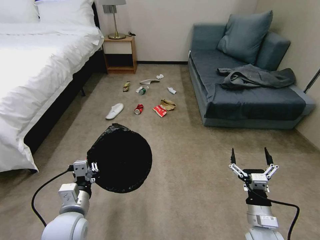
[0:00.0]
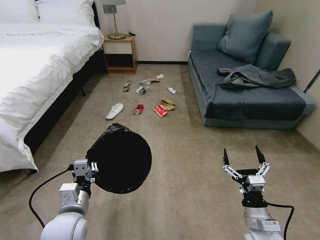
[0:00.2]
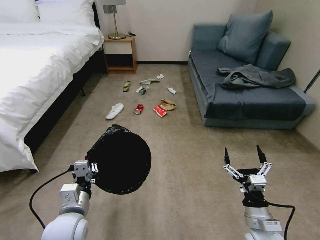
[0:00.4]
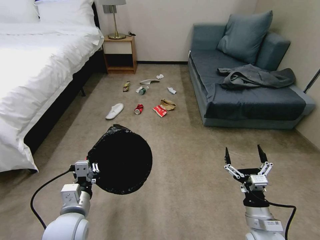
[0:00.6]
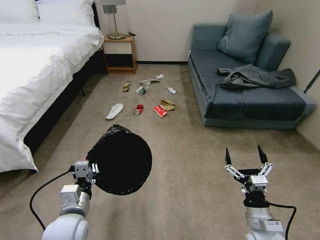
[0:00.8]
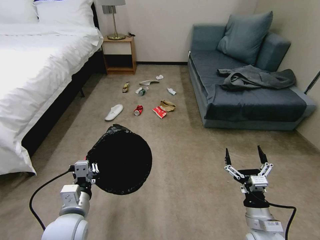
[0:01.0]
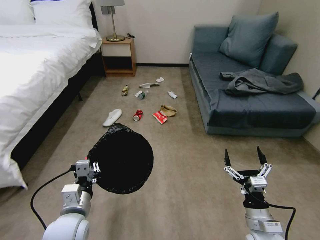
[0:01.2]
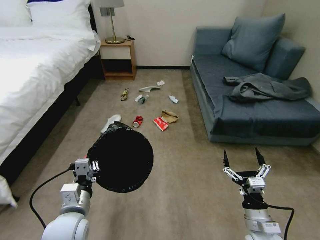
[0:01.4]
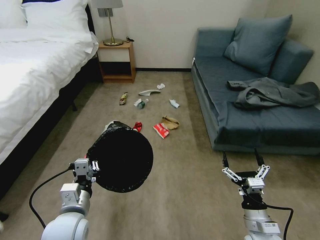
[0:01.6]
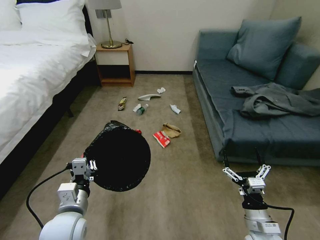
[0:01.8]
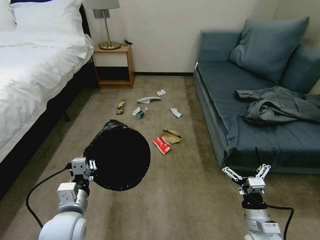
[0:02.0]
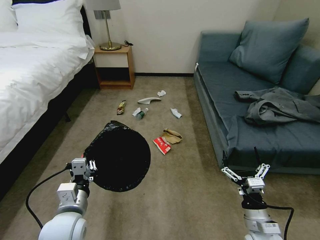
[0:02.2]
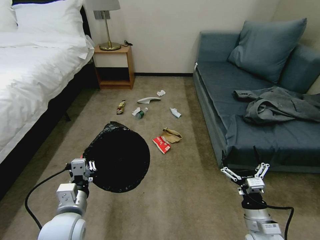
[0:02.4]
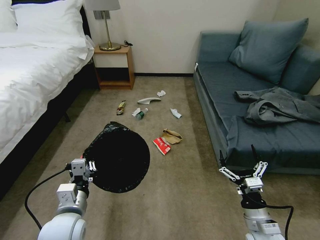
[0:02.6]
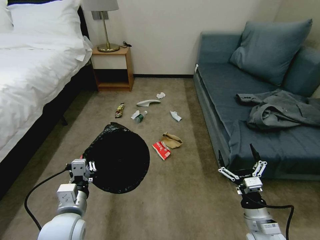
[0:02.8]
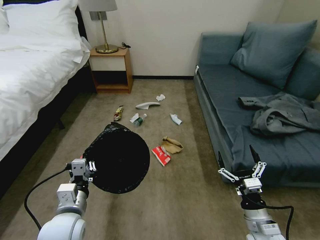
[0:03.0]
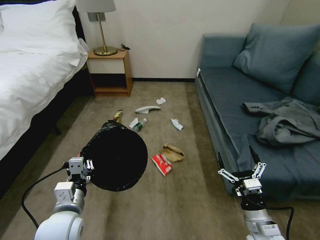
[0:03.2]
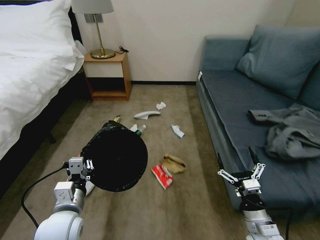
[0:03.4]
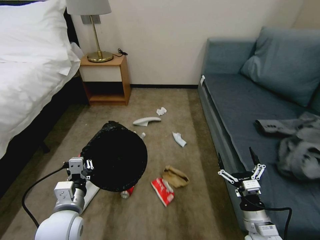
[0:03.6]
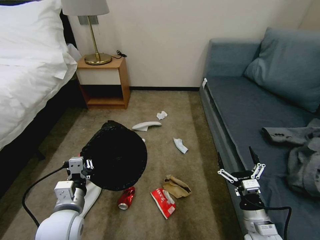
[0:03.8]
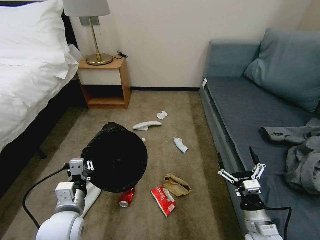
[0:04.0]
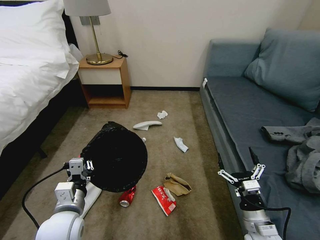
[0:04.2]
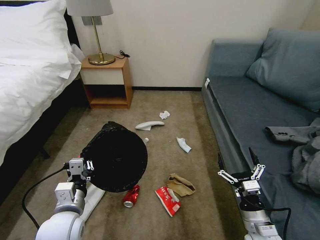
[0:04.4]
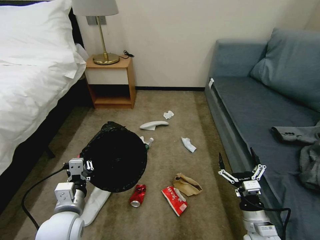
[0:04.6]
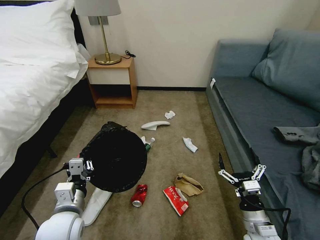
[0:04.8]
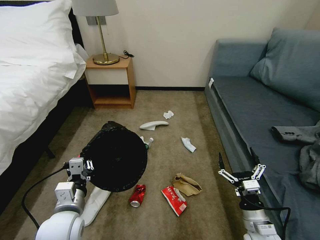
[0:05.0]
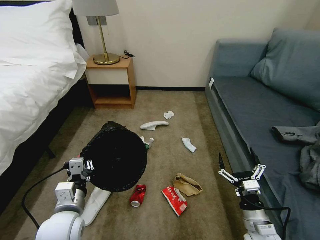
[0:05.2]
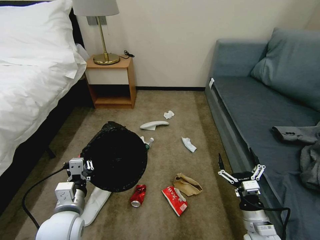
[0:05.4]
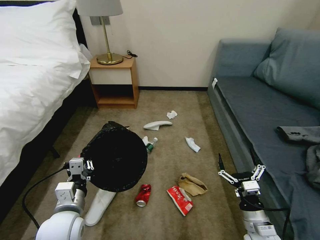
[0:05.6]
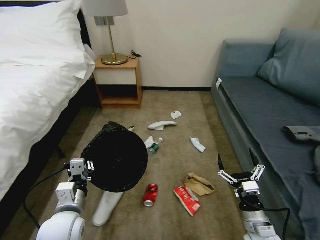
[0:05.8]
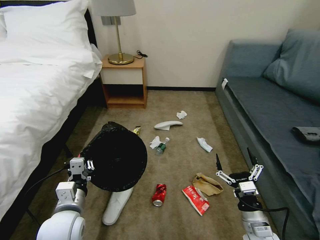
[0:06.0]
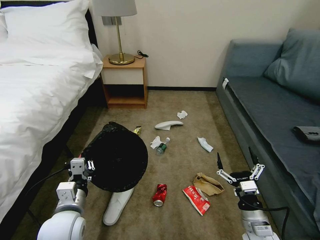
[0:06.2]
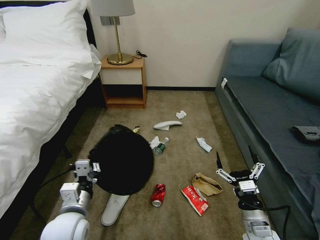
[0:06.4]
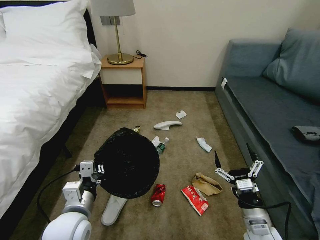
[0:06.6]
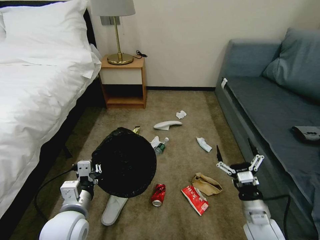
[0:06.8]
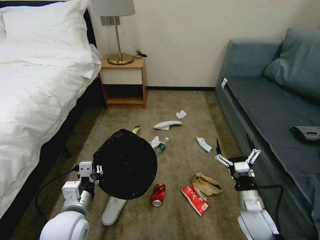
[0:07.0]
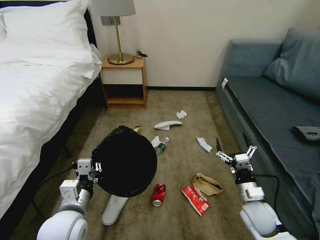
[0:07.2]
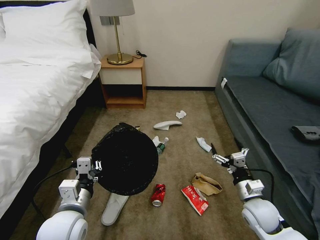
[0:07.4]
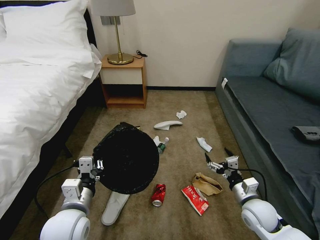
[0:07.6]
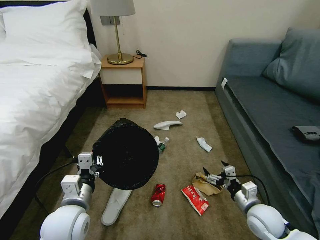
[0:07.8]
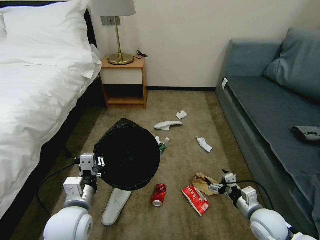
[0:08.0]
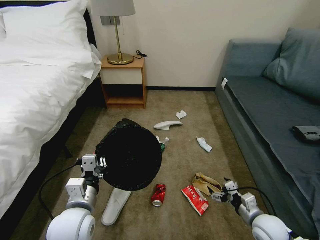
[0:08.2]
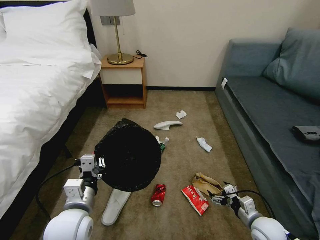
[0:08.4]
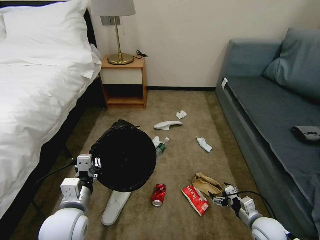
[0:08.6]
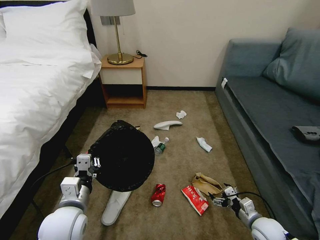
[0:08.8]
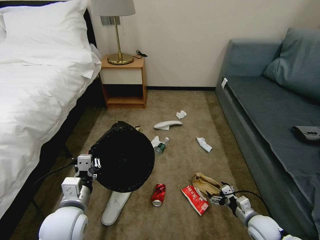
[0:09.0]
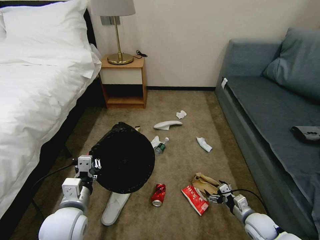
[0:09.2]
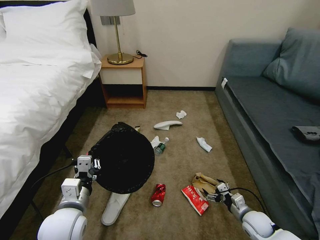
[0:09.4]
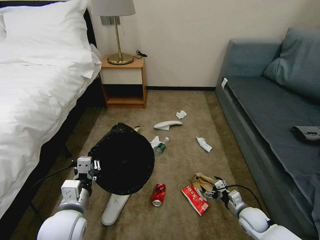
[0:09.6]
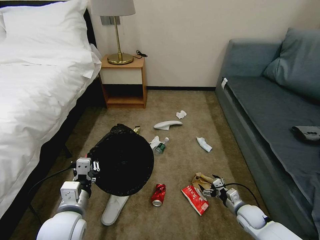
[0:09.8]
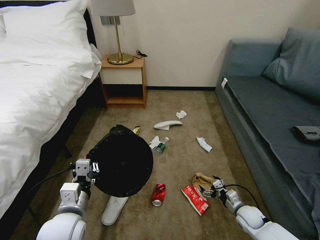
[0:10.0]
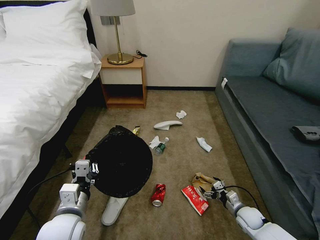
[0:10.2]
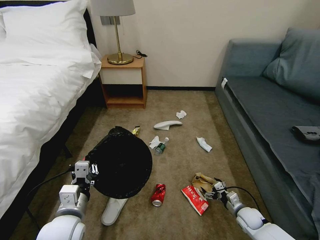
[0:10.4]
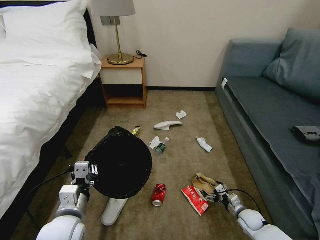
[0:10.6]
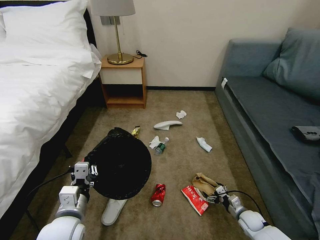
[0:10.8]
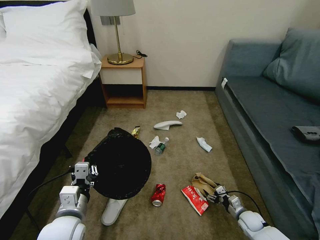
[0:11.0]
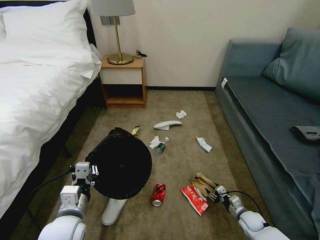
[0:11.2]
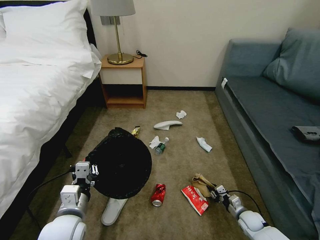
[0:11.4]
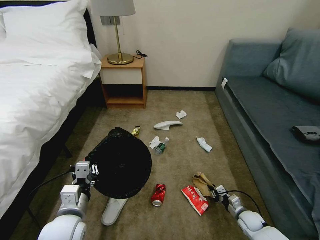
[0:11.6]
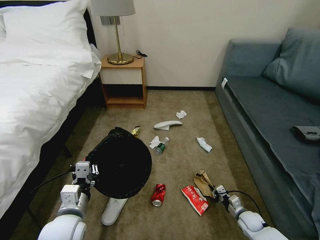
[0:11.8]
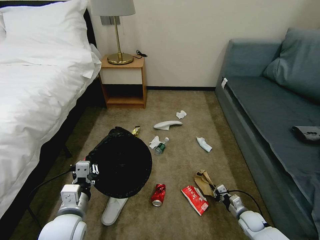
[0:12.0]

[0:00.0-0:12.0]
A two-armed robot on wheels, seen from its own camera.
Task of the whole recording: Pick up the trash bin, then pick up the garbage on the floor and place it into the trash bin.
0:06.0 to 0:07.6: The right gripper goes about 10 cm forward.
0:07.6 to 0:09.0: The right gripper moves downward, some 10 cm.
0:09.0 to 0:10.4: The right gripper goes about 5 cm downward.
0:10.4 to 0:12.0: The right gripper closes up.

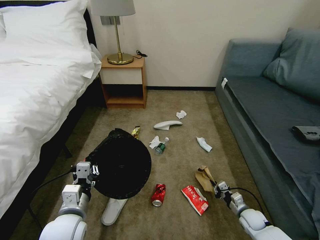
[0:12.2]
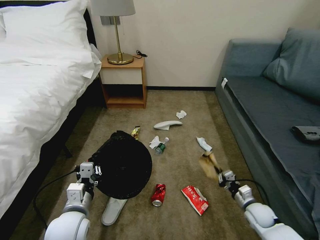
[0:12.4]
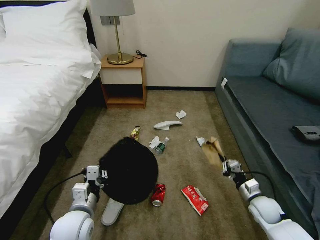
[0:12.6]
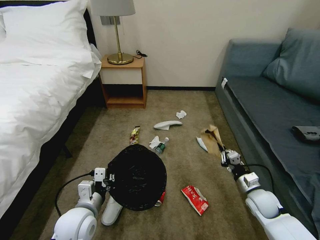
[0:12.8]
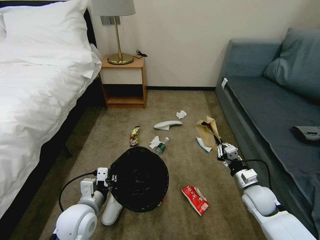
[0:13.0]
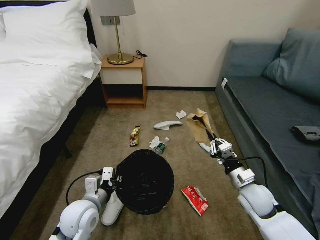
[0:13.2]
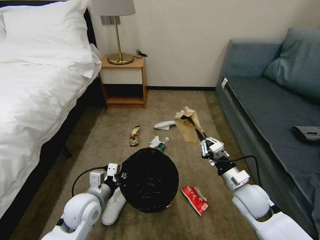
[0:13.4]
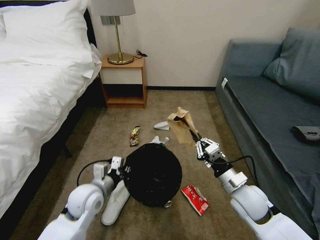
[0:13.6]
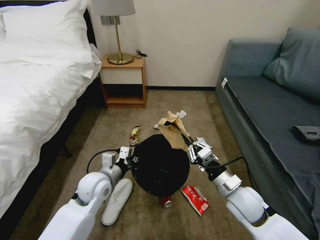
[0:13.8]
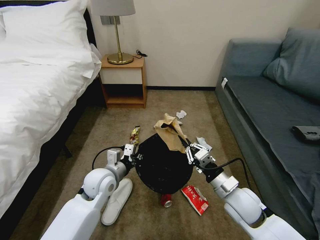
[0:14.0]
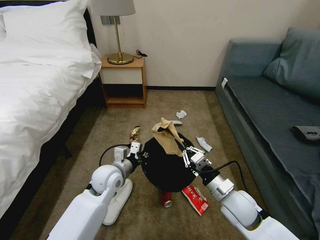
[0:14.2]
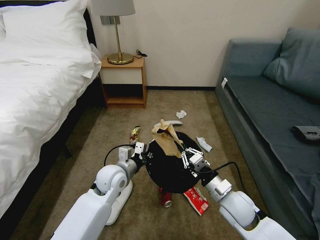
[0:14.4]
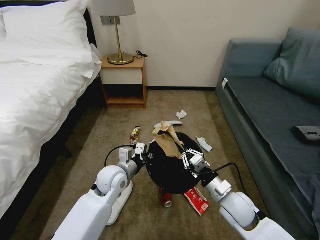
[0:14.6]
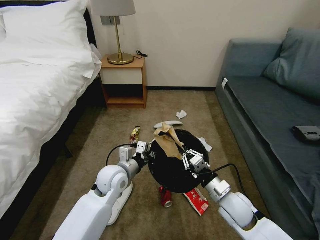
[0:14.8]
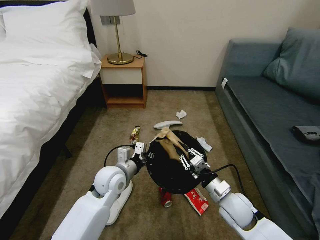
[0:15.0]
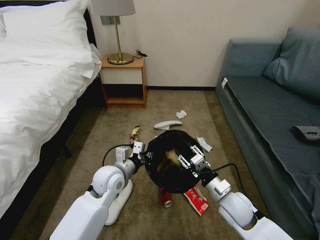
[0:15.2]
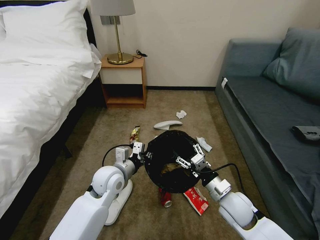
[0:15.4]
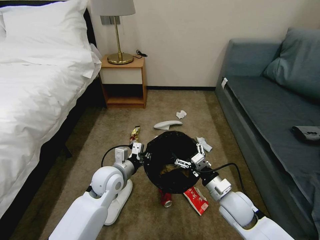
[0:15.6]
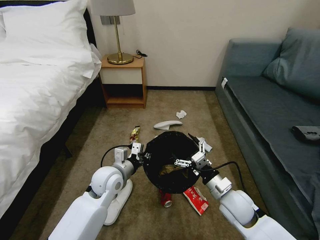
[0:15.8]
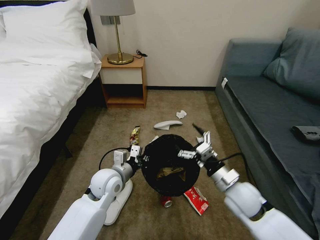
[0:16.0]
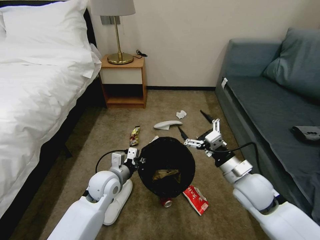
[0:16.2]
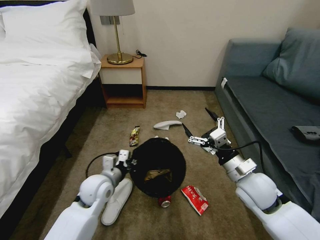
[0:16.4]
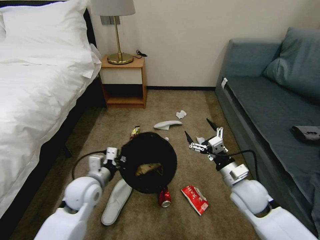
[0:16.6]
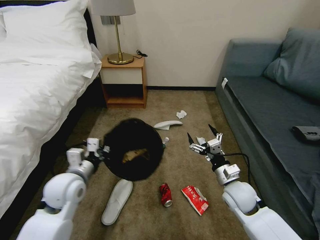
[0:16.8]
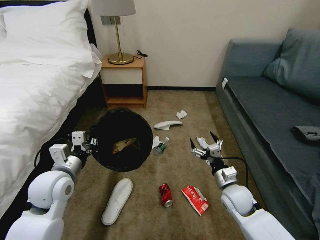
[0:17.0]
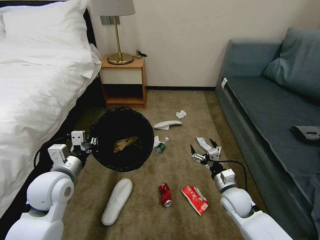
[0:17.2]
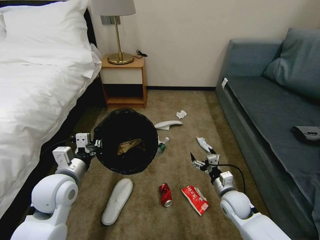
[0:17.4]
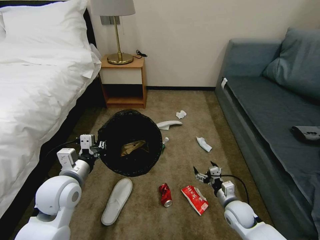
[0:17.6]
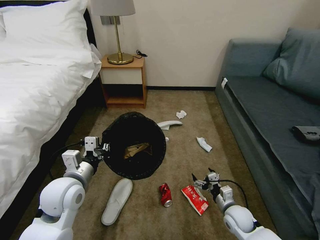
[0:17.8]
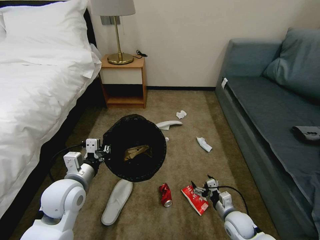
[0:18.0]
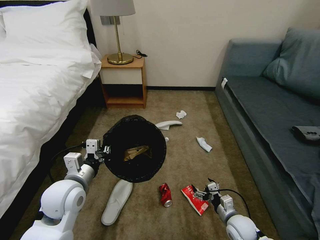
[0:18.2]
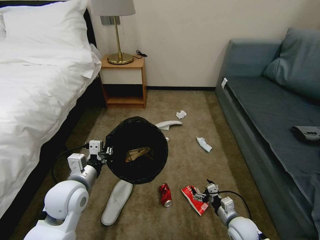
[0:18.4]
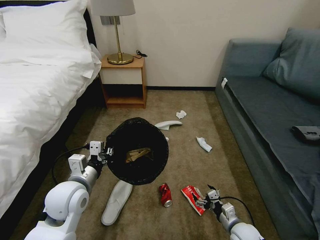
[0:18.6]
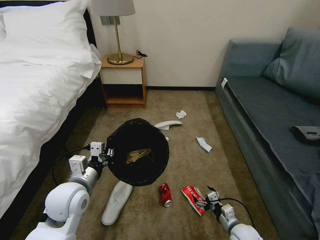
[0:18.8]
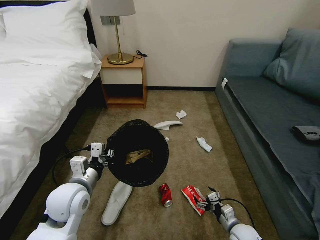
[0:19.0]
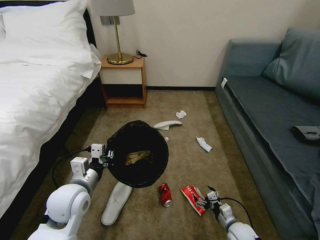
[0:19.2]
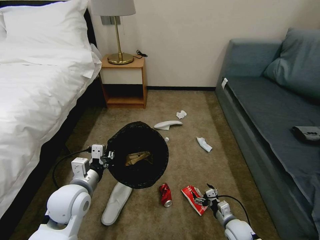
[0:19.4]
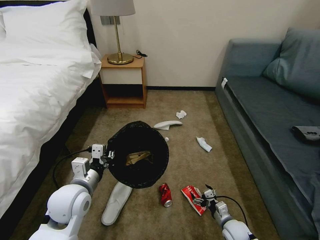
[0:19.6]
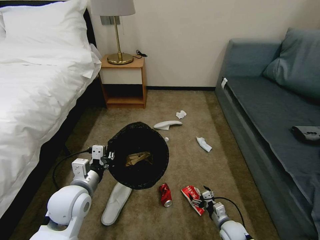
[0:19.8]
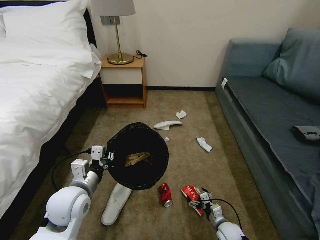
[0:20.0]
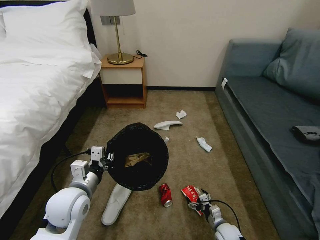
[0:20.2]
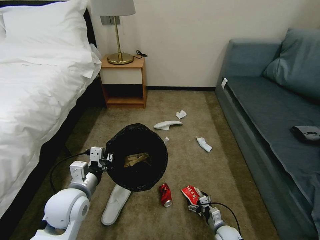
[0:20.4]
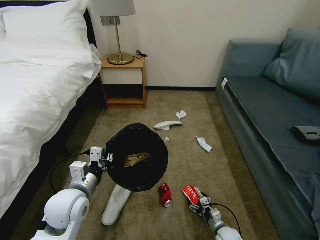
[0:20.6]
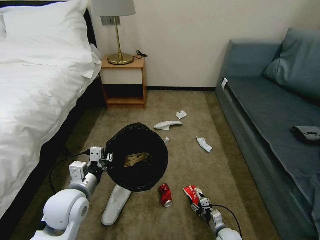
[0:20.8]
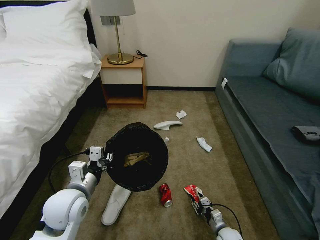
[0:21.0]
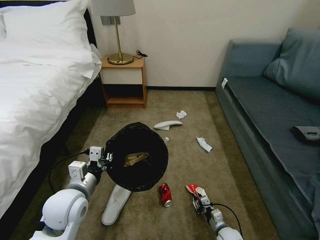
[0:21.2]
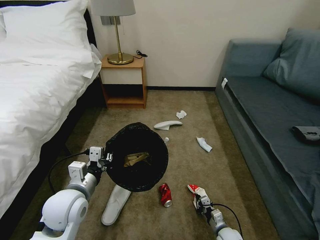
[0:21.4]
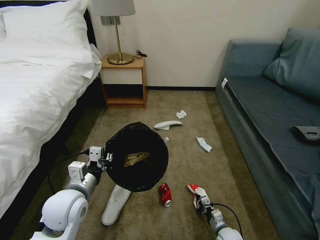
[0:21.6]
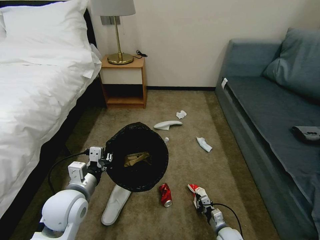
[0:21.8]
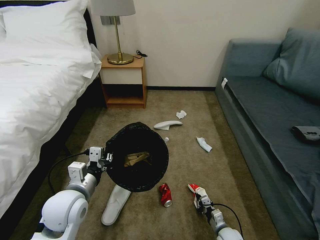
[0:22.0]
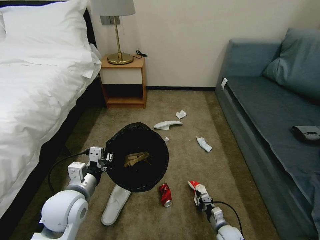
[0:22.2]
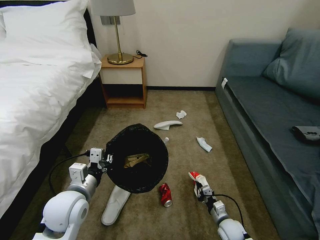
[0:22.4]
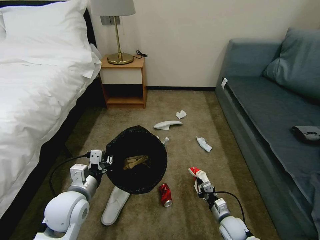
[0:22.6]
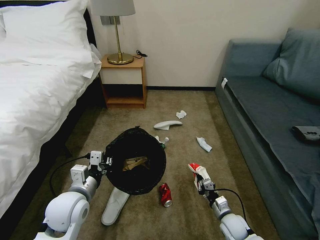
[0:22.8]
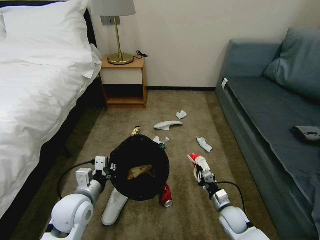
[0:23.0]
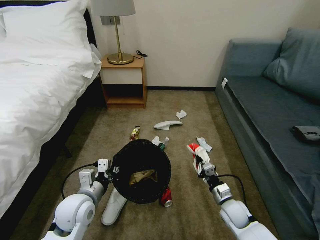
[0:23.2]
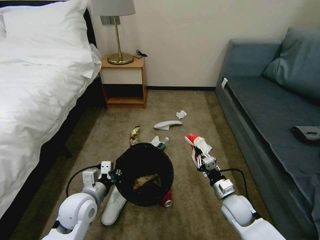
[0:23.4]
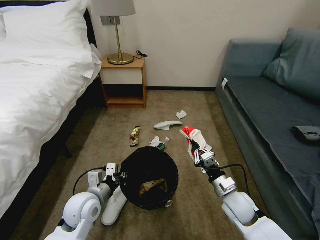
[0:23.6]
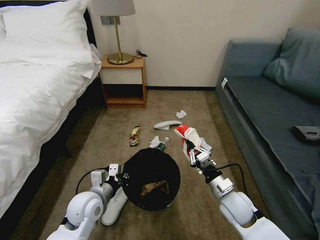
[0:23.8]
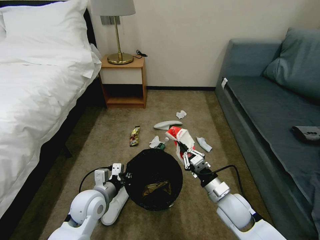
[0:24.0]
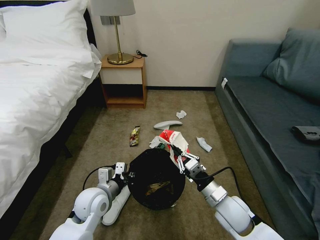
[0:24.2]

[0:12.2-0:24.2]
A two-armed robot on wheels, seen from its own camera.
Task of the whole recording: Pick up the trash bin, then pick up the garbage on the floor and place it into the trash bin.
0:12.2 to 0:13.8: The left gripper moves forward, roughly 10 cm; the right gripper is displaced upward and to the left by some 25 cm.
0:13.8 to 0:15.2: The right gripper opens up.
0:15.2 to 0:16.6: The right gripper ends up some 5 cm from where it was, and opens, while the left gripper heads to the left, covering roughly 5 cm.
0:16.6 to 0:18.2: The right gripper heads downward, covering some 20 cm, while the left gripper shifts roughly 5 cm upward.
0:18.2 to 0:19.8: The right gripper moves downward, about 10 cm.
0:19.8 to 0:21.2: The right gripper closes.
0:21.2 to 0:22.6: The right gripper moves upward, about 5 cm.
0:22.6 to 0:24.2: The left gripper shifts some 5 cm downward. The right gripper moves upward, roughly 20 cm.
